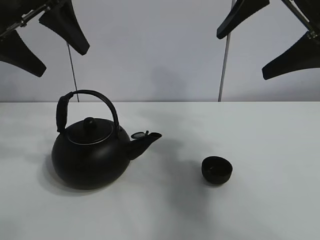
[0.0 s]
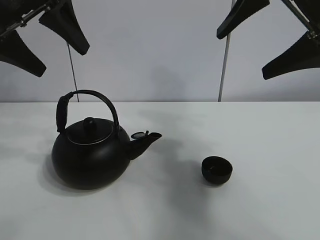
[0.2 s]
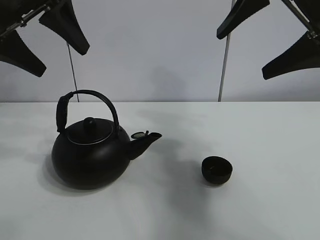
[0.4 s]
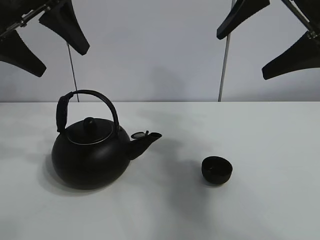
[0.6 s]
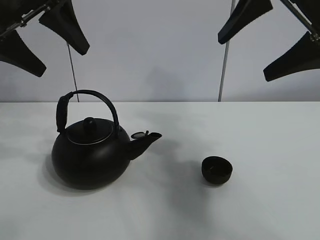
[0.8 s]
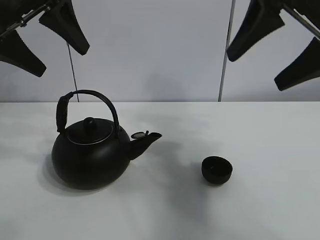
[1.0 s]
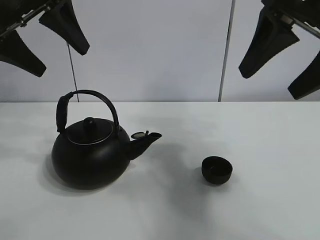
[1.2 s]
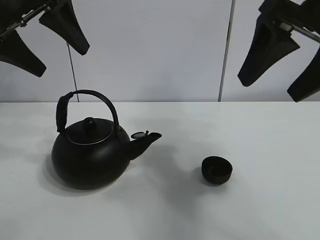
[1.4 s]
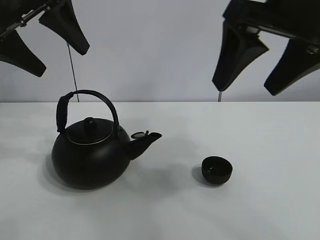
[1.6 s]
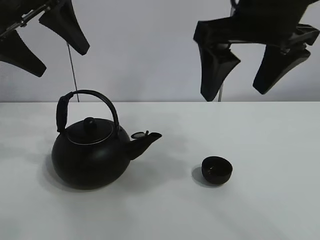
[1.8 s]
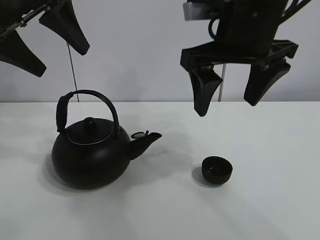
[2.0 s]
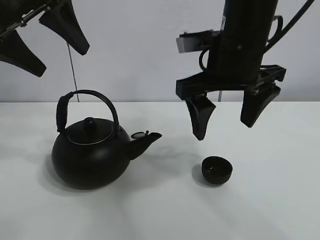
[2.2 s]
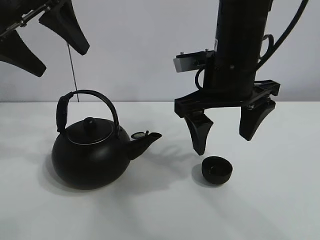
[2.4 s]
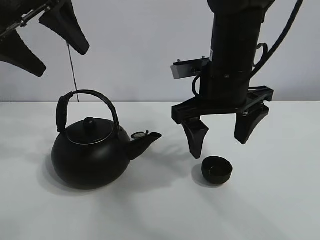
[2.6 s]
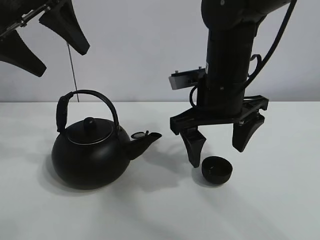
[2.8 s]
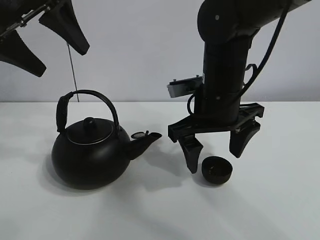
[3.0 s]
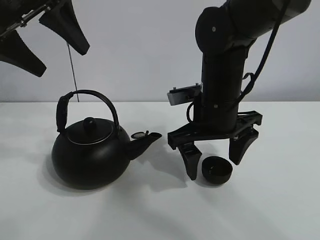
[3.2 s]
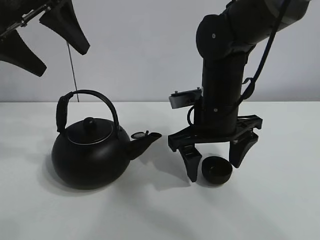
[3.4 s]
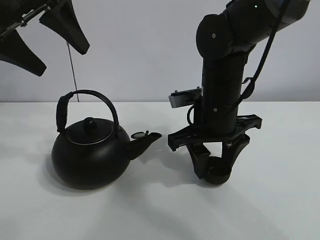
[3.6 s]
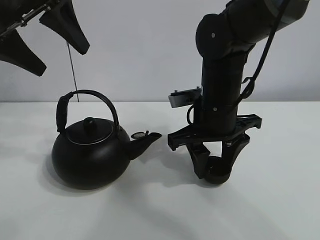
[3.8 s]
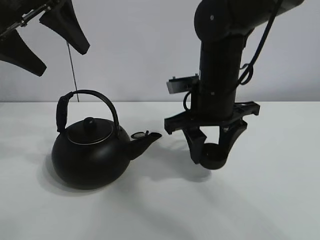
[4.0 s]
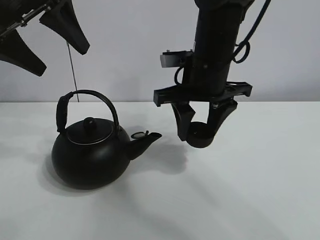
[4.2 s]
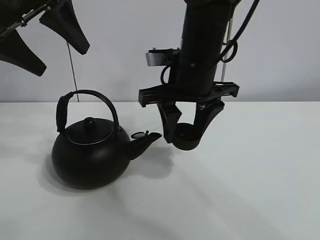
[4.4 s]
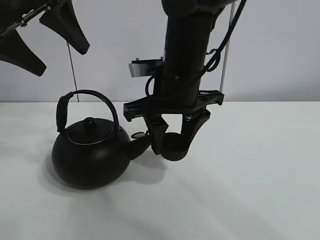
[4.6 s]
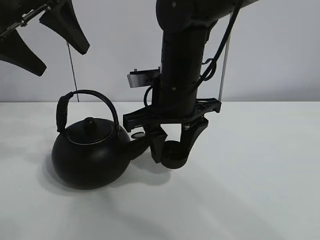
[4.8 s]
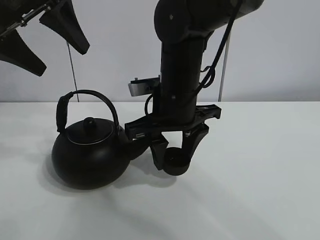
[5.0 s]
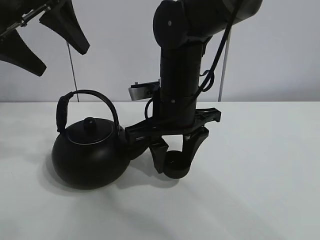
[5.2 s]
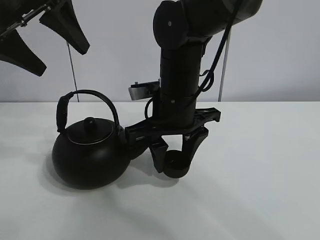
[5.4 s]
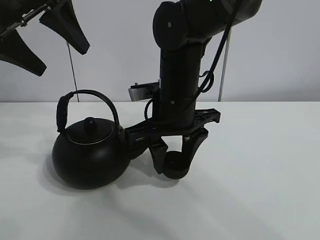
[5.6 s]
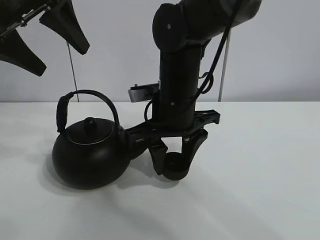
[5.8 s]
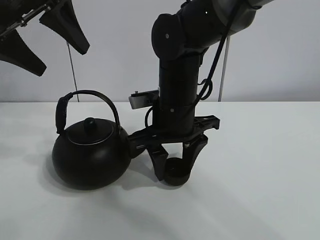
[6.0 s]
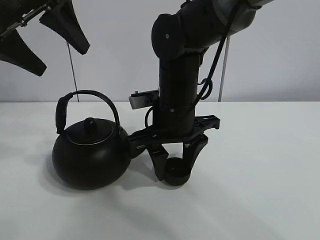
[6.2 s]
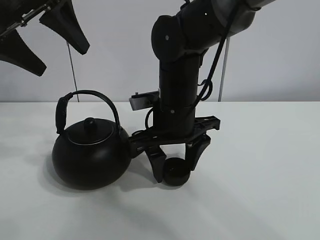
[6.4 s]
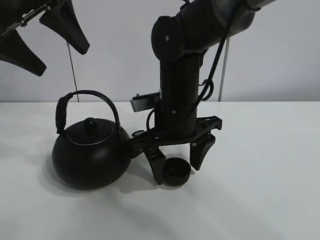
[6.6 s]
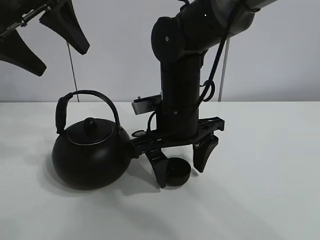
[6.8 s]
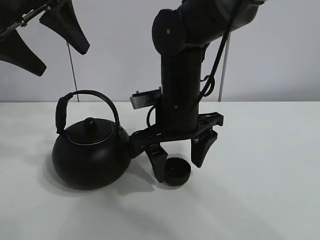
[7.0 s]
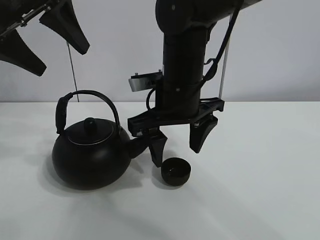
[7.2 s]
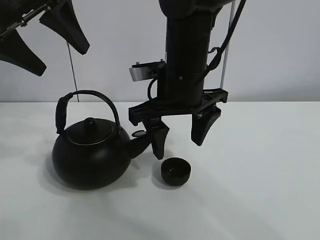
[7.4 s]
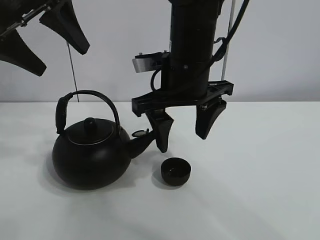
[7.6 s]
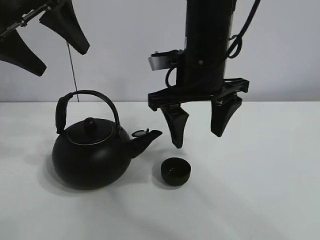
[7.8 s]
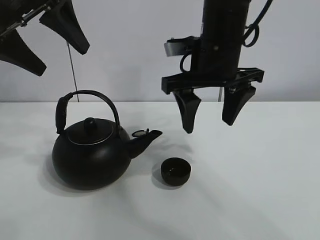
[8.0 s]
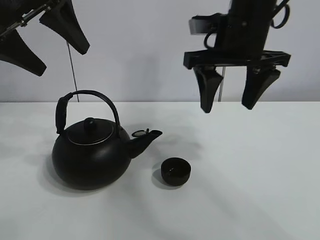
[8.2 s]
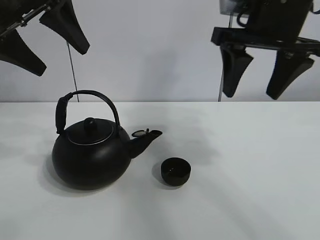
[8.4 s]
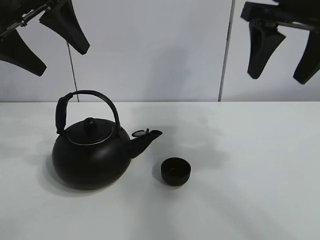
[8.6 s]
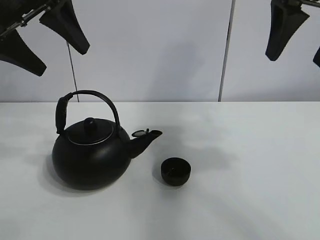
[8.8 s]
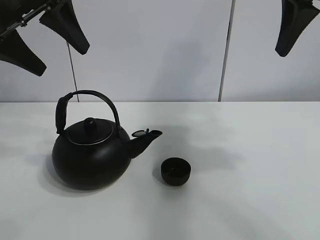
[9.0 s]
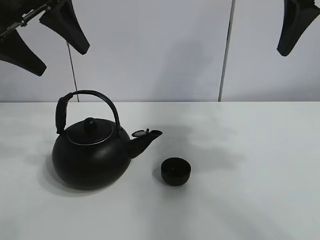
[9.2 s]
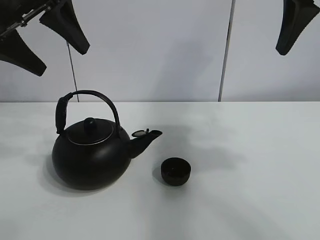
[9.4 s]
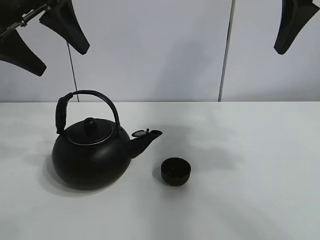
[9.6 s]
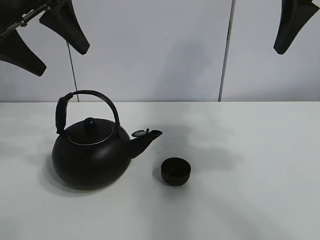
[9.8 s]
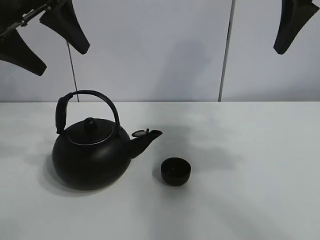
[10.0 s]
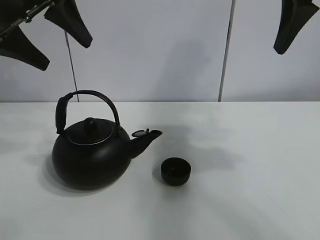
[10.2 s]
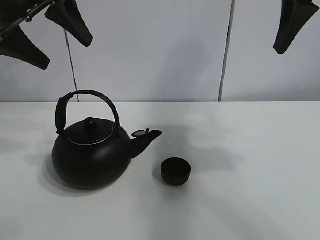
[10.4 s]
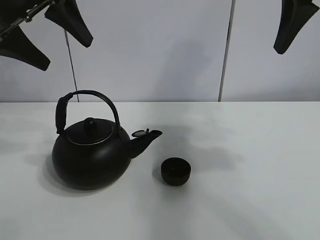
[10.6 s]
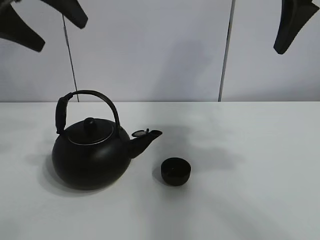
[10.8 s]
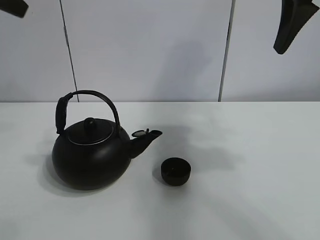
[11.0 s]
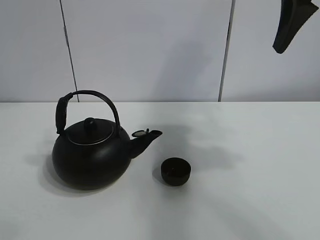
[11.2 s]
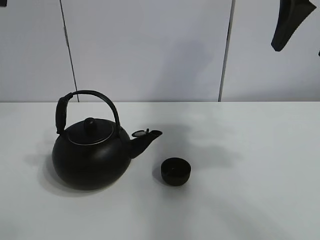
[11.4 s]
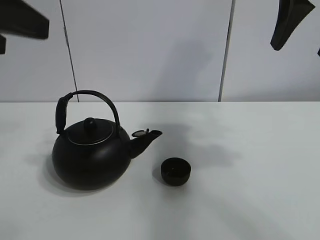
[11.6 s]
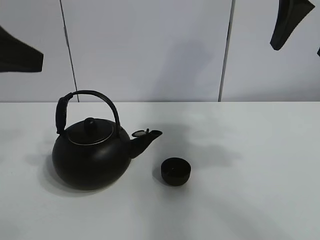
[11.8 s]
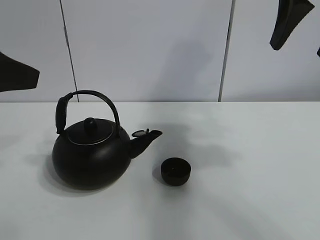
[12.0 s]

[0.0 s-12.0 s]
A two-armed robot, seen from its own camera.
Task of the whole recording: pour tea into the teacup.
Step, 0.0 to 3.6 s: Pick up the teacup with the right gripper.
Step, 3.8 to 6.8 s: Place the teacup in the center of view with the right gripper.
1.6 to 3.0 s: The right gripper moves downward, forward and to the left, approximately 20 cm.
3.0 to 4.4 s: The right gripper moves about 5 cm, and closes up.
4.4 to 6.0 s: The right gripper is displaced downward by roughly 5 cm.
6.0 to 7.6 s: The right gripper goes about 5 cm upward, and opens its fingers.
7.6 to 9.0 s: The right gripper heads to the right and upward, covering about 25 cm.
9.0 to 10.4 s: Both grippers stay put.
10.4 to 12.0 s: The left gripper heads backward, covering about 15 cm.

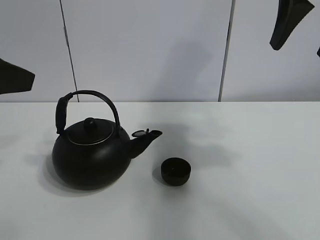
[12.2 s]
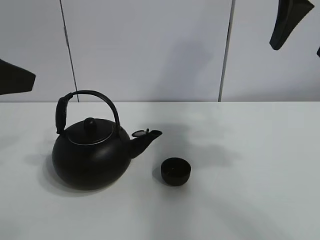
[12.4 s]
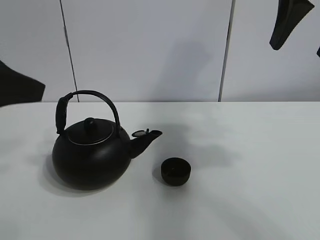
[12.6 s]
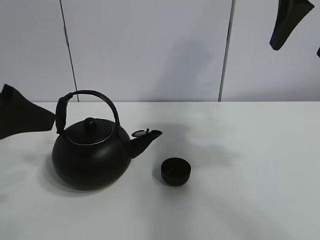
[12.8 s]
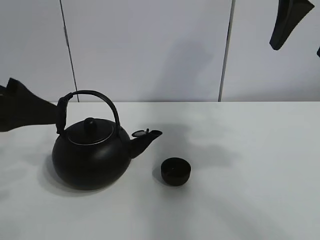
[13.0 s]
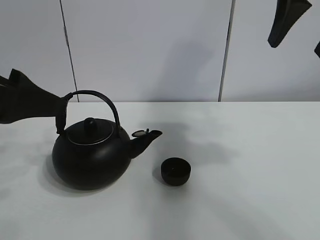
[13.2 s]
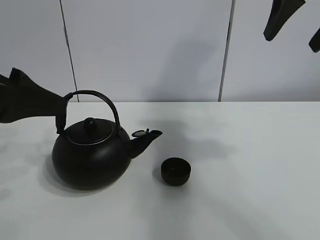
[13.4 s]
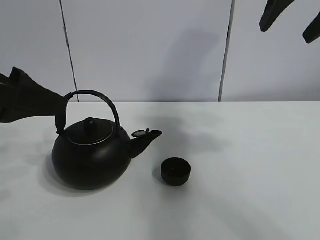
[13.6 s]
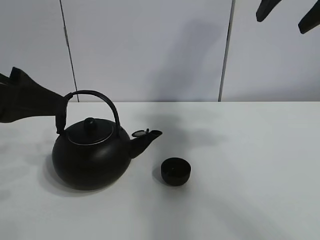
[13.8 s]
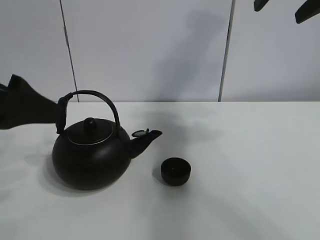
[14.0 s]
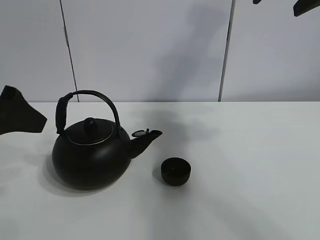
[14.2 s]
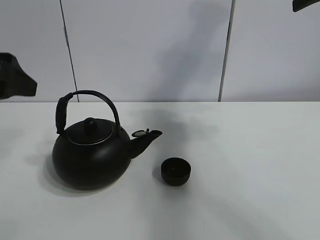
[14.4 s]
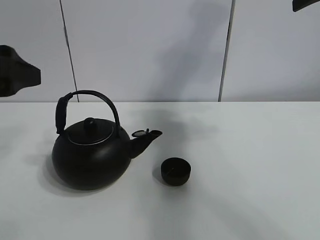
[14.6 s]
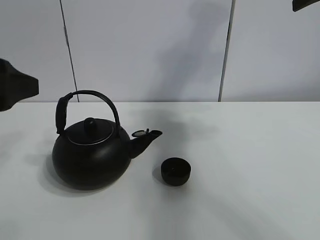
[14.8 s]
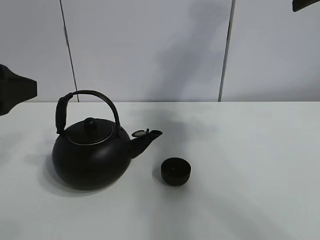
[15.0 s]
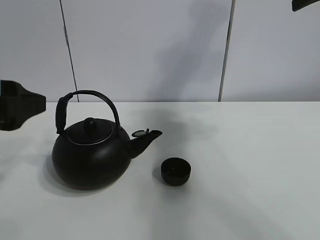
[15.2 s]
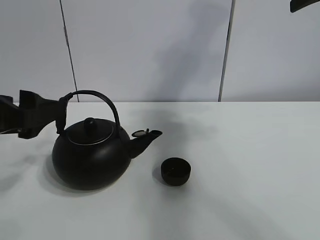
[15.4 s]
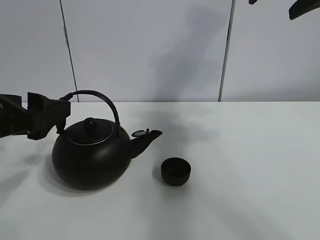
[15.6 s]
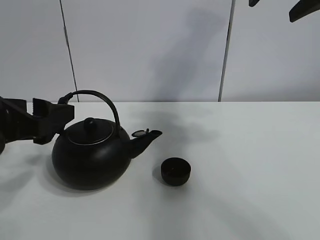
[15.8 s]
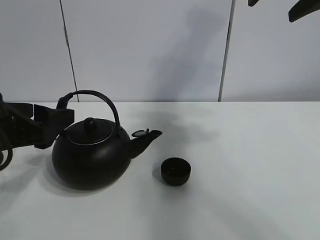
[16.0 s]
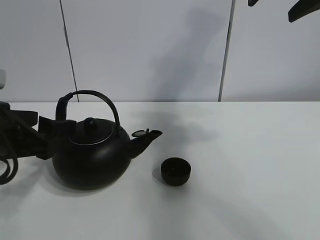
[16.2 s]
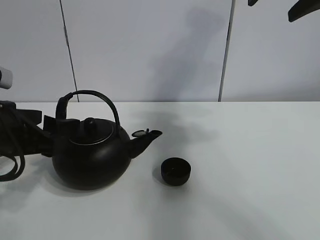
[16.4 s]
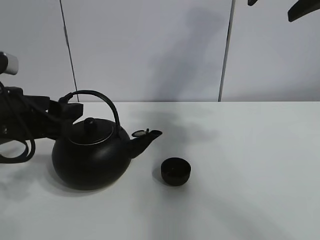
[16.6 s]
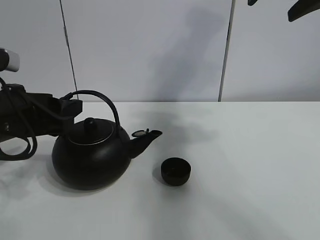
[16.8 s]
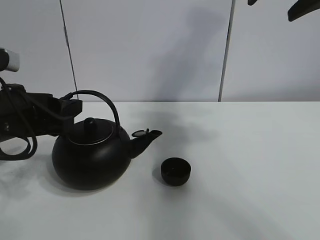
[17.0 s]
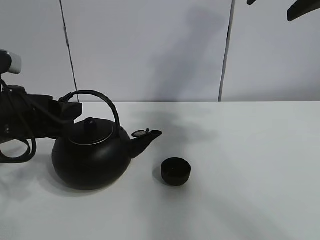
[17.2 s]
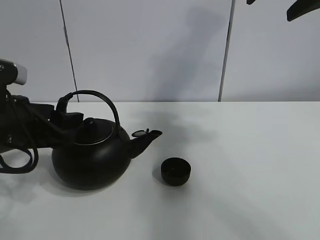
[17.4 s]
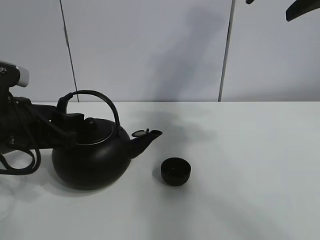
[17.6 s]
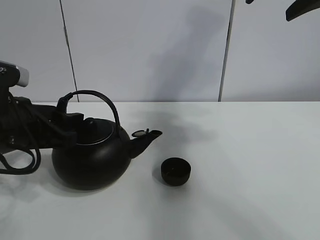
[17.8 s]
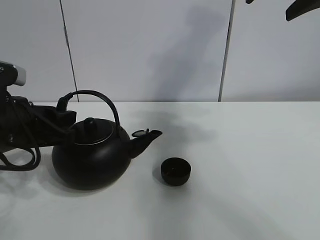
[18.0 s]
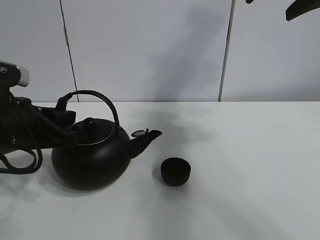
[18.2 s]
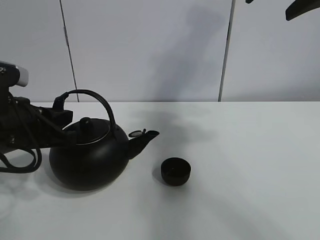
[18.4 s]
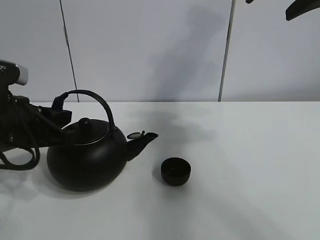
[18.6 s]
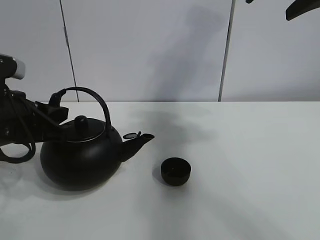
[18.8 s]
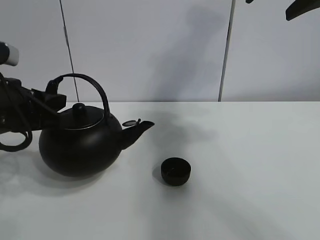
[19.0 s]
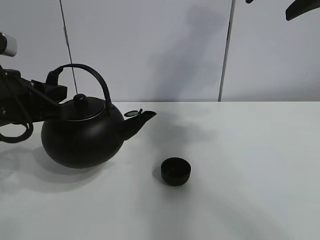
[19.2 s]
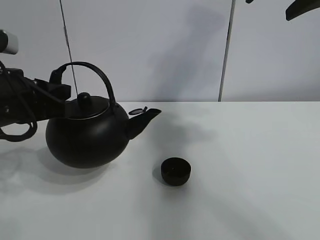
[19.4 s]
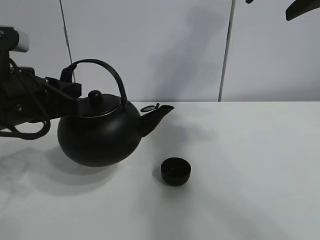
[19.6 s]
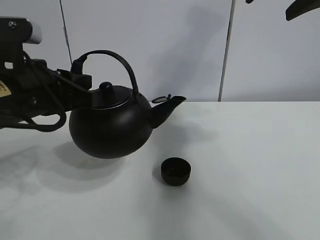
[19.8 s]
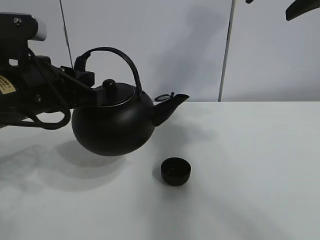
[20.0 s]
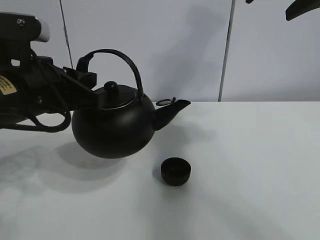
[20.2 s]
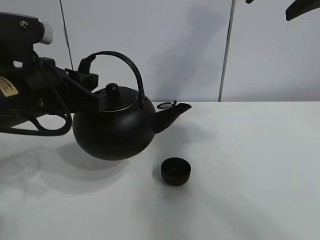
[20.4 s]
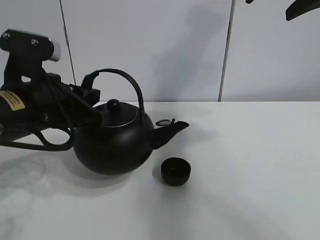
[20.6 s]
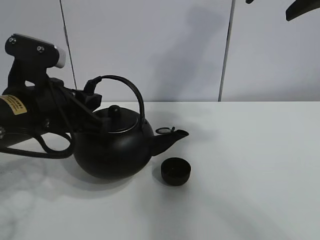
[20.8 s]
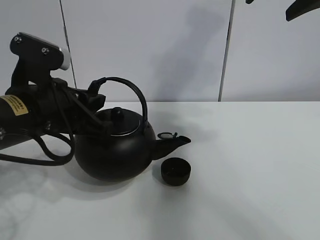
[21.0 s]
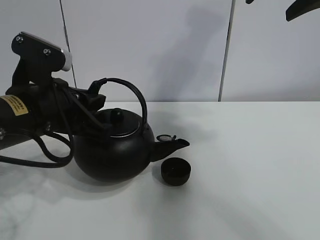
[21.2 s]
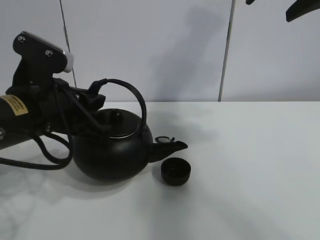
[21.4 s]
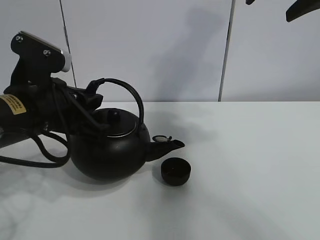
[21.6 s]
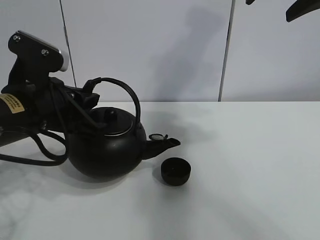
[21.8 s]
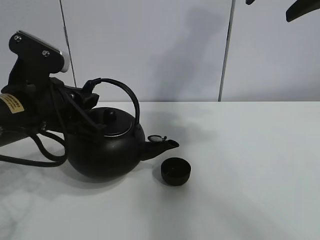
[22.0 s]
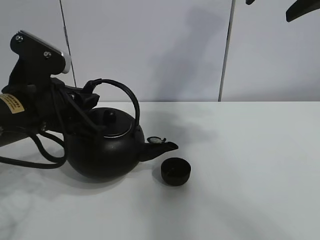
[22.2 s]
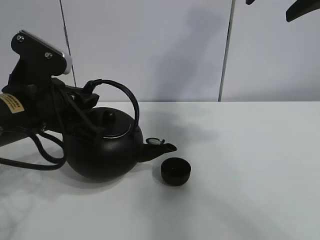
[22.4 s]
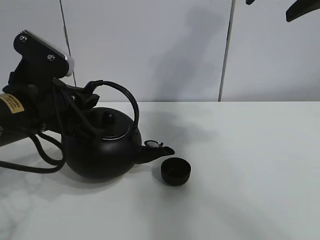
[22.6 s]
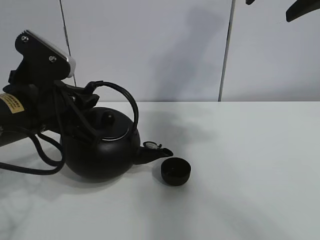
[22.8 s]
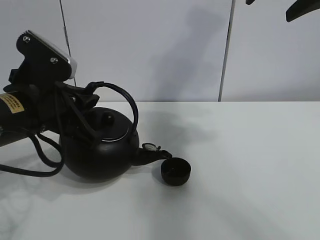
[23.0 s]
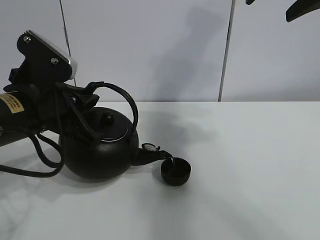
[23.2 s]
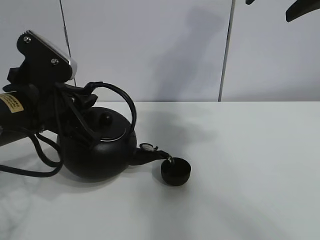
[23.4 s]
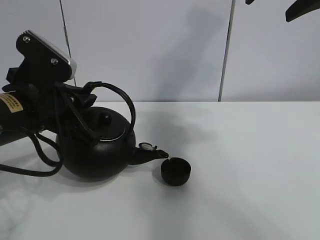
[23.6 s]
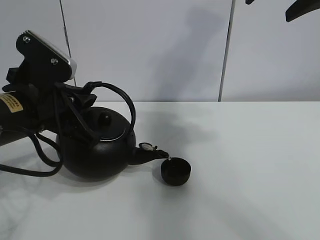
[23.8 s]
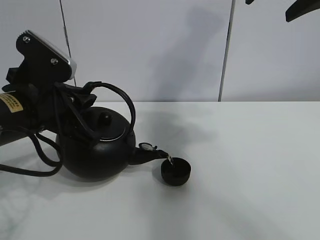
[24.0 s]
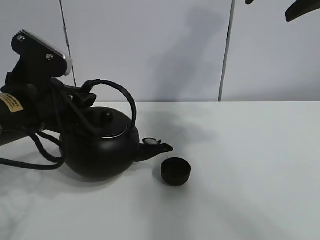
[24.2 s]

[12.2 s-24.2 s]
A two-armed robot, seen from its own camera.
Task of the whole recording: pour tea into the teacup.
Step, 12.2 to 18.4 s: Pick up the teapot with the left gripper.
Step, 18.6 to 24.2 s: Pour tea into the teacup with the left gripper.
12.2 to 13.8 s: The grippers make only small movements.
15.2 to 16.6 s: The left gripper shifts roughly 5 cm downward.
16.6 to 18.2 s: The left gripper closes up.
18.2 to 19.8 s: The left gripper moves about 5 cm.
19.8 to 21.2 s: The grippers move only a little.
21.2 to 24.2 s: There are only small adjustments of the grippers.
